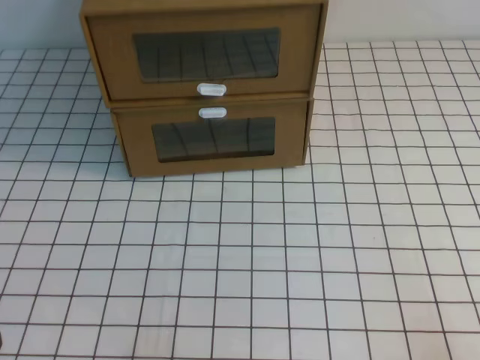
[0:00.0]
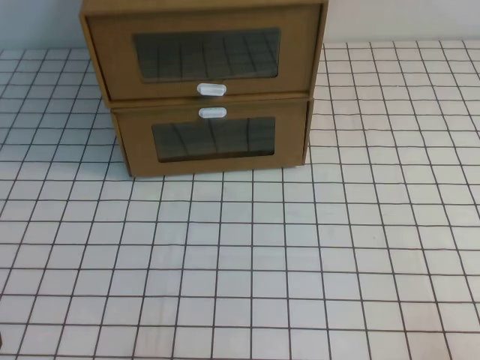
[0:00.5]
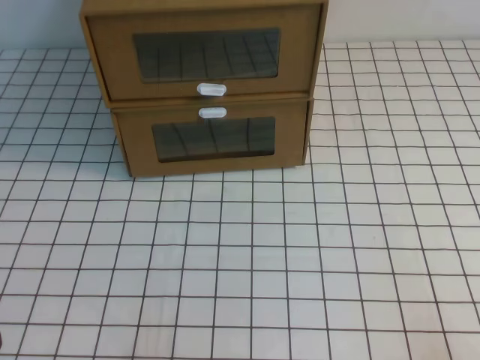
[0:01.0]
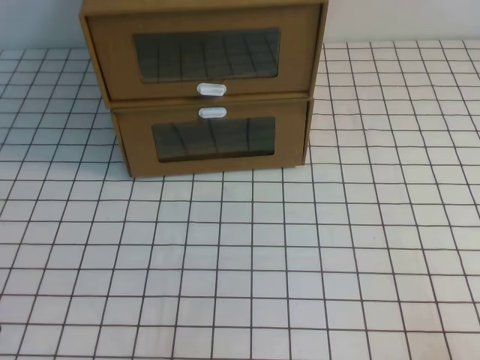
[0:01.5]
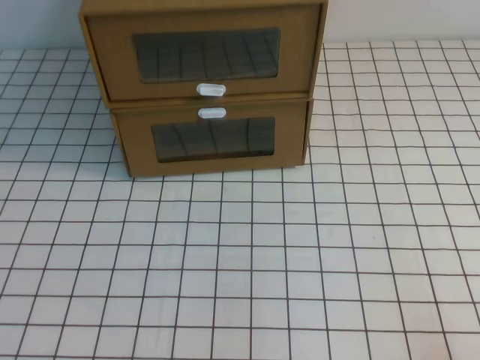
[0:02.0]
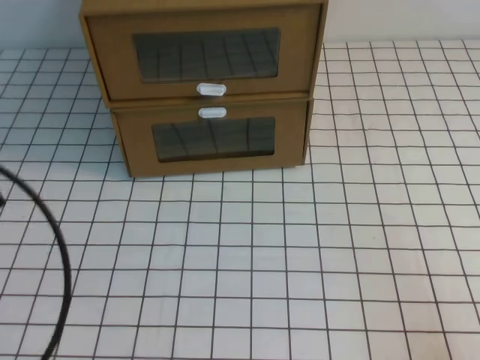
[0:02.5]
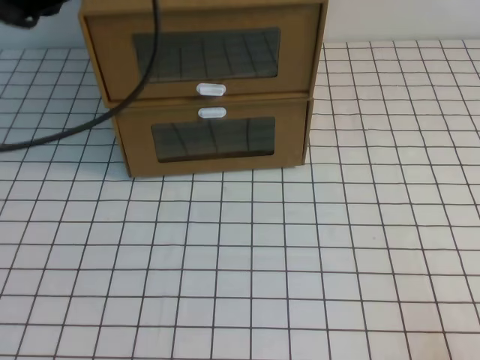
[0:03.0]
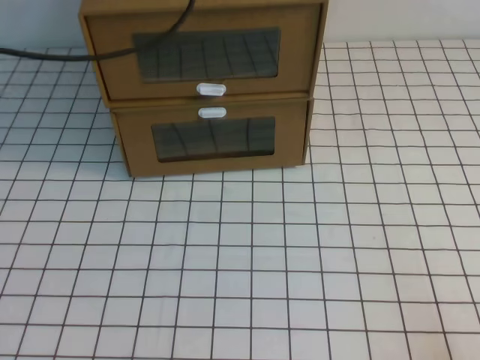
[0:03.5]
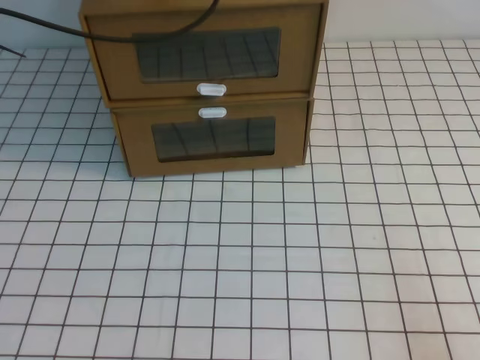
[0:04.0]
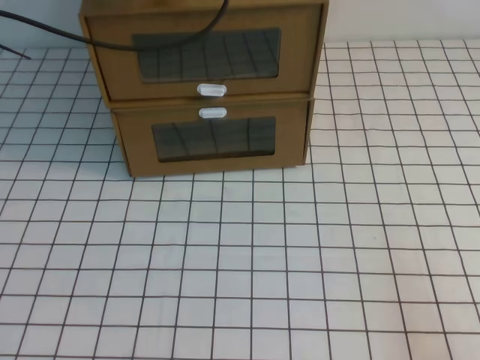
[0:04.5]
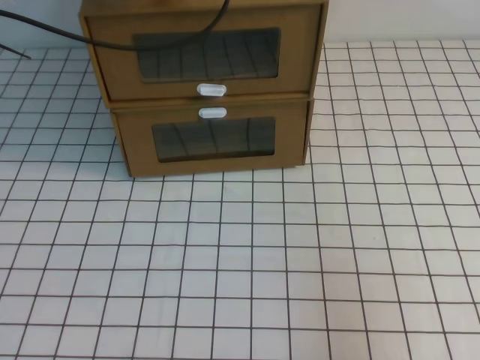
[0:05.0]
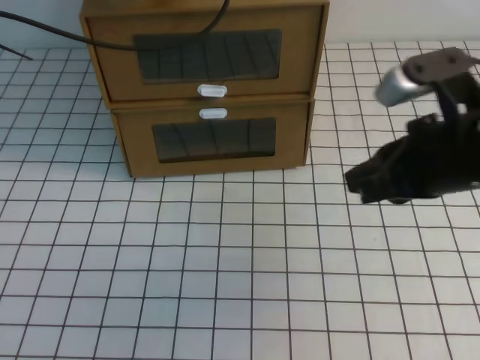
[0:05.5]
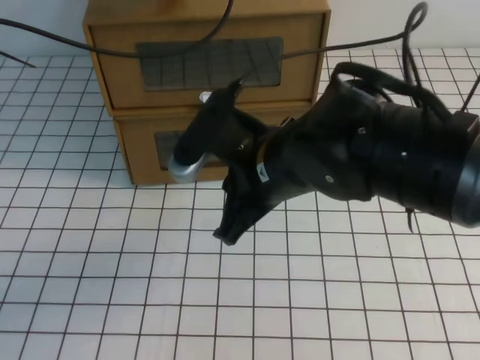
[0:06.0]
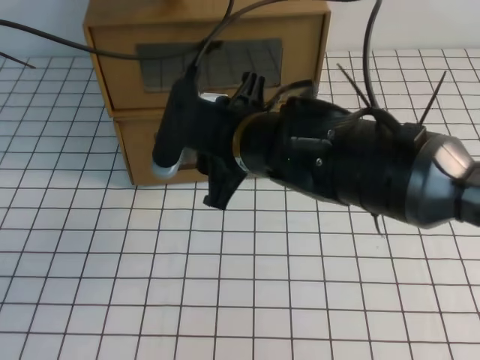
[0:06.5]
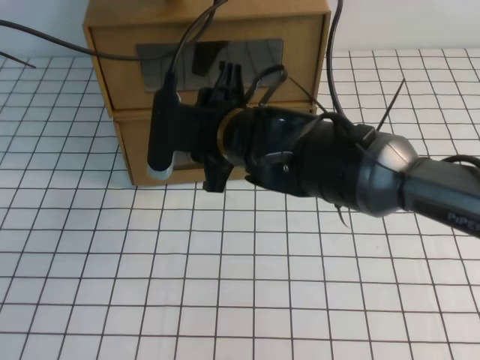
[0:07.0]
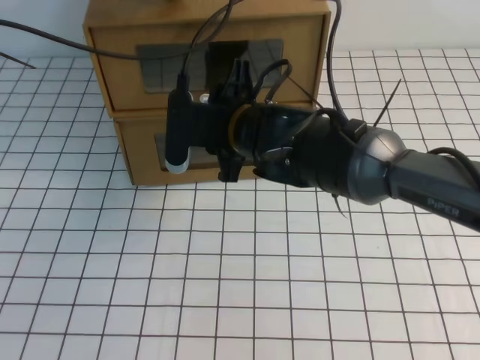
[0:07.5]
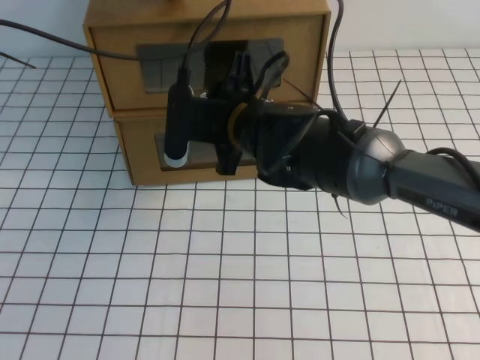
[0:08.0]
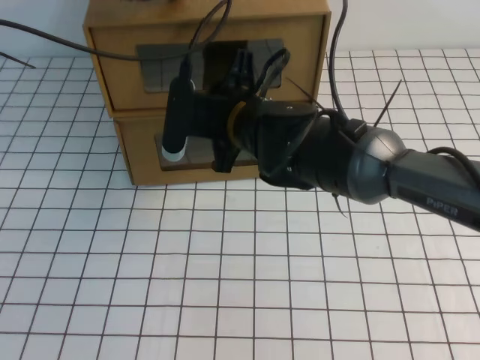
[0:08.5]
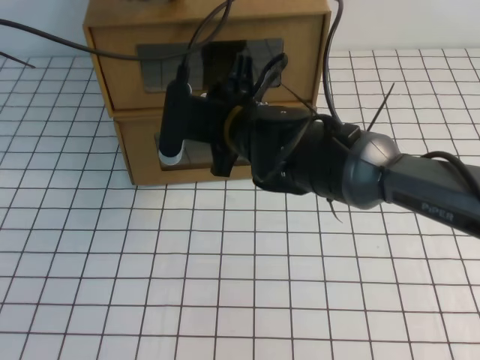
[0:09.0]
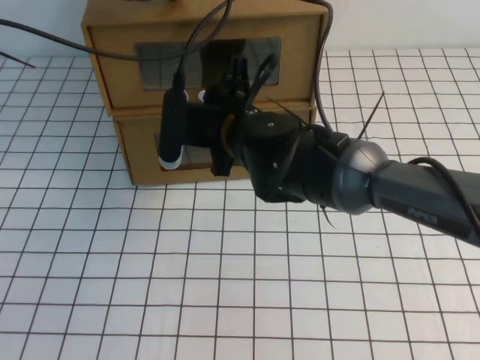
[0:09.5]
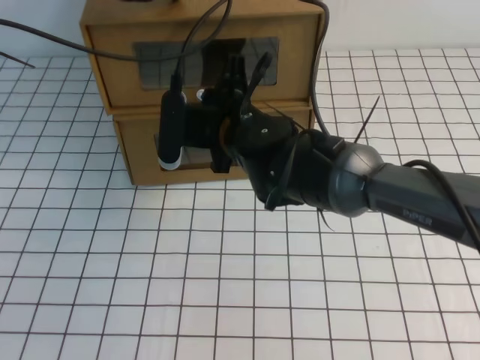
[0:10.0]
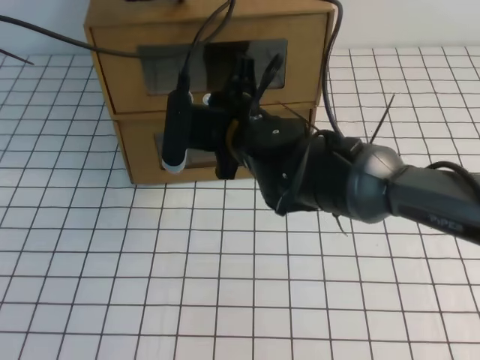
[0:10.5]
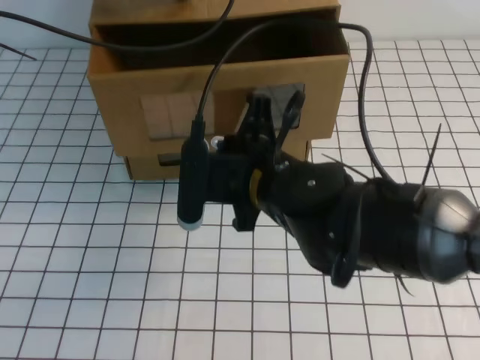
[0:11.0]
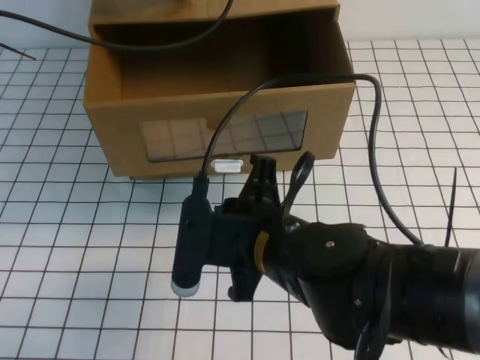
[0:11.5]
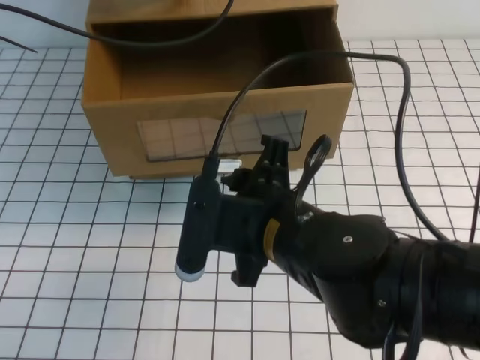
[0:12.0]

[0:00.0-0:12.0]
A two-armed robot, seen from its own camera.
Task of the whole recording: open the shoebox on the white tablecloth.
0:02.0 to 0:04.0: The left gripper goes roughly 40 cm forward and upward.
0:04.0 to 0:06.0: The right gripper shifts roughly 35 cm to the left, forward and upward.
0:06.0 to 0:08.0: The right gripper goes some 10 cm forward, and opens up.
0:08.0 to 0:10.0: The right gripper closes up.
0:10.0 to 0:12.0: The right gripper shifts approximately 15 cm backward, and opens its fingers.

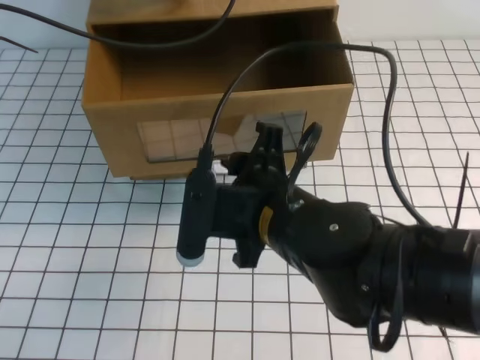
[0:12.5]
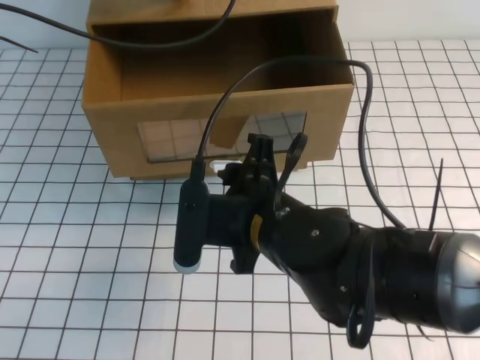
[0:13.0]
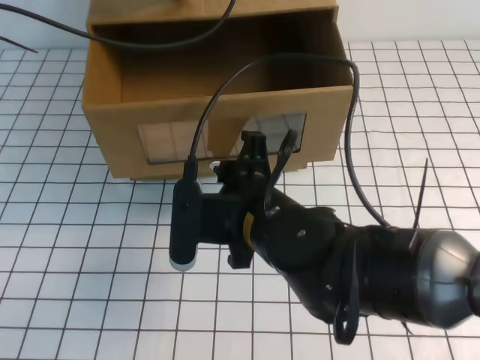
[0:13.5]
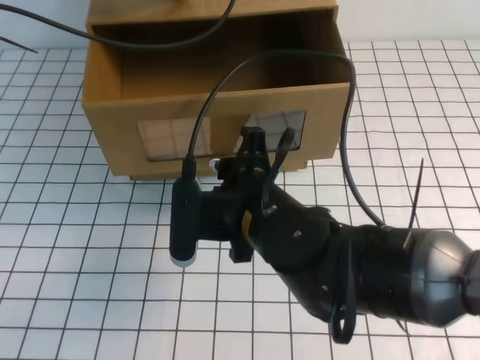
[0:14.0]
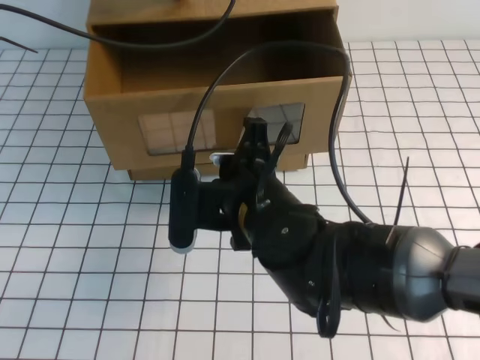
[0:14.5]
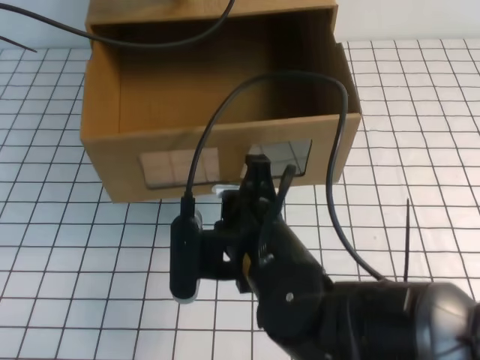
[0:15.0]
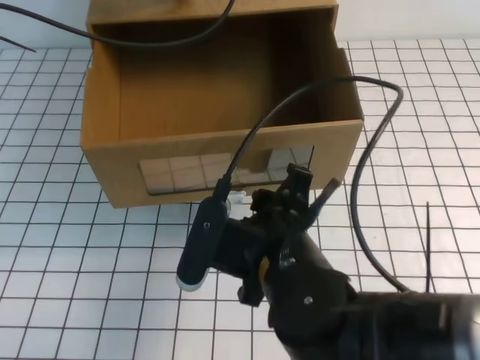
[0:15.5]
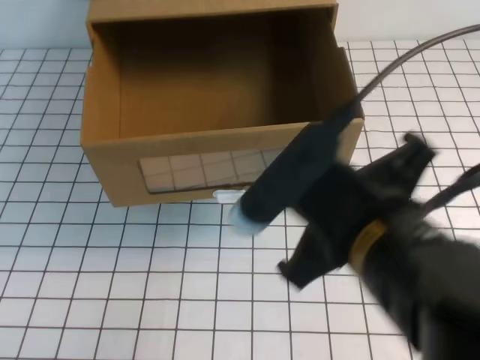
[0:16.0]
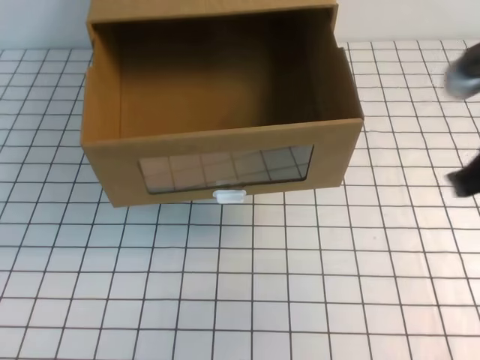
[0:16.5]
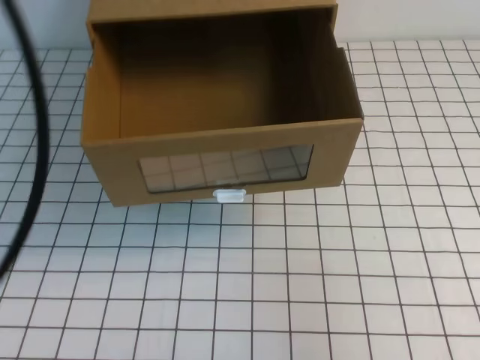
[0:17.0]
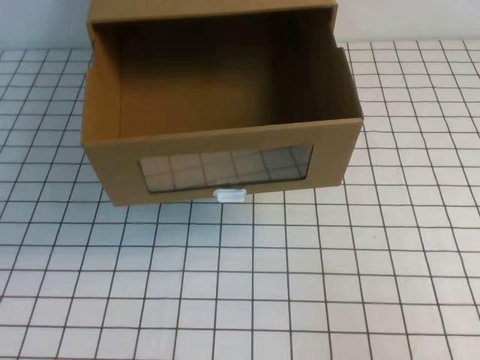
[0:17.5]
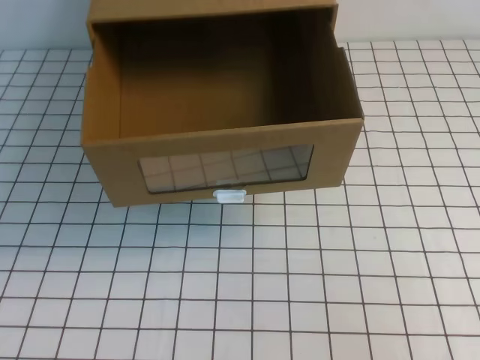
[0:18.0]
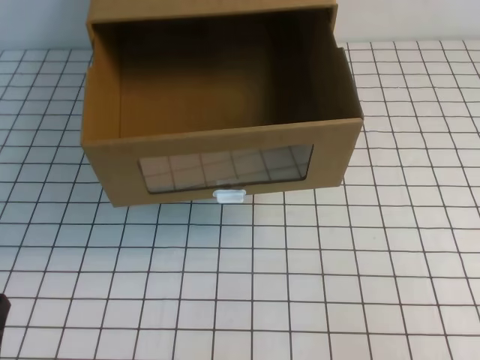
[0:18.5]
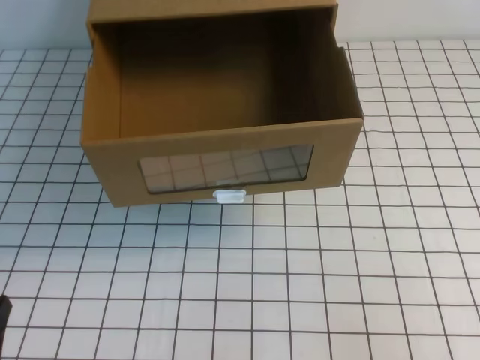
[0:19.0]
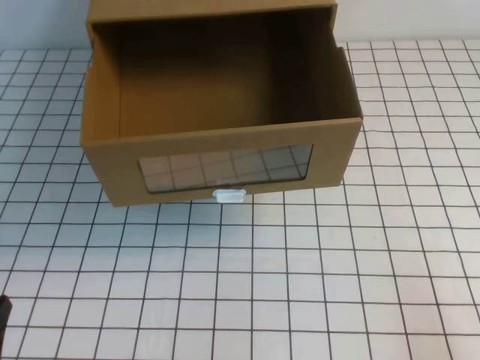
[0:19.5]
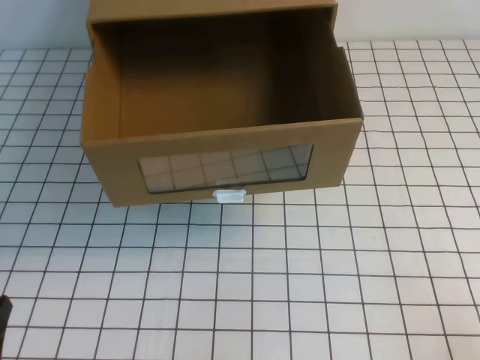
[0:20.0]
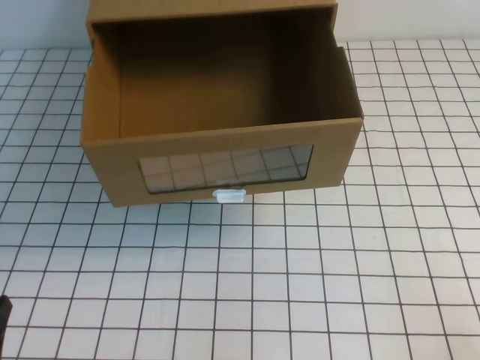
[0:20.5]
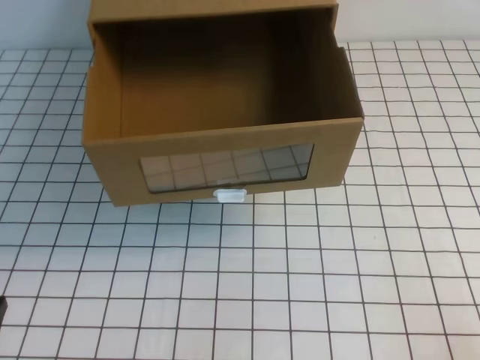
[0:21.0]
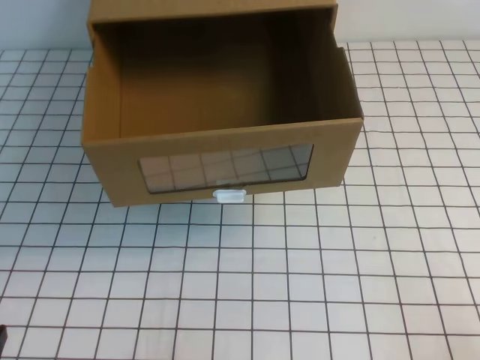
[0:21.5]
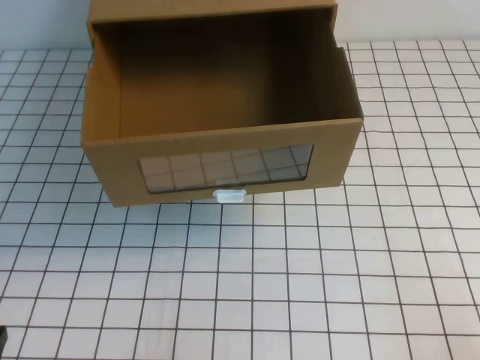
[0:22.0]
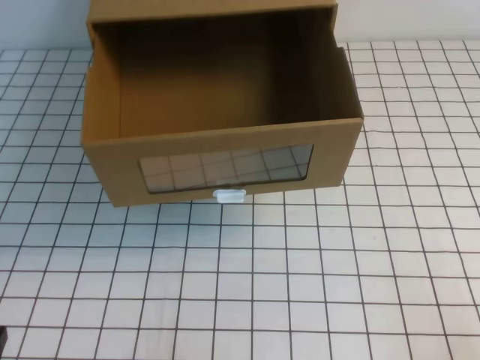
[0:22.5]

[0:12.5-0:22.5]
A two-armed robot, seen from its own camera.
Task of the whole recording: open the shoebox on the white tablecloth.
Step, 0:12.5 to 0:22.5: Open the shoe box.
0:12.5 to 0:14.5: The right gripper closes up.
0:14.5 to 0:16.5: The right gripper is displaced to the right and upward by roughly 25 cm; the left gripper travels backward and upward by roughly 25 cm.
0:16.5 to 0:18.5: The left gripper goes some 40 cm downward and backward, while the right gripper travels backward, to the right and downward by some 20 cm.

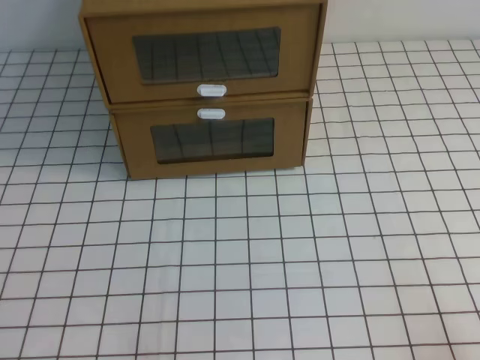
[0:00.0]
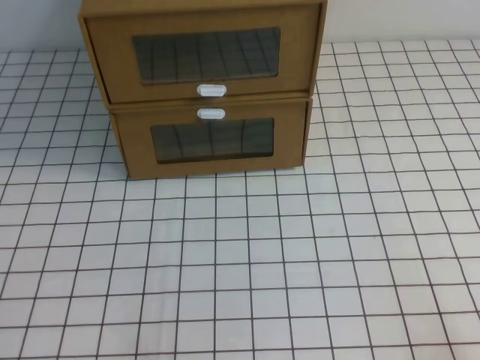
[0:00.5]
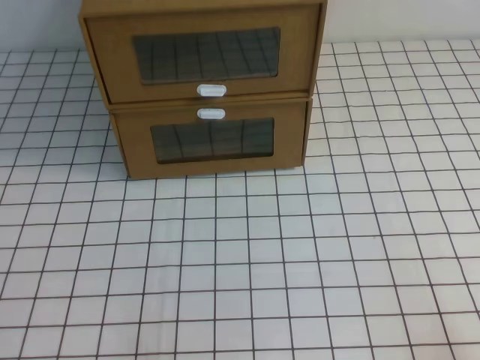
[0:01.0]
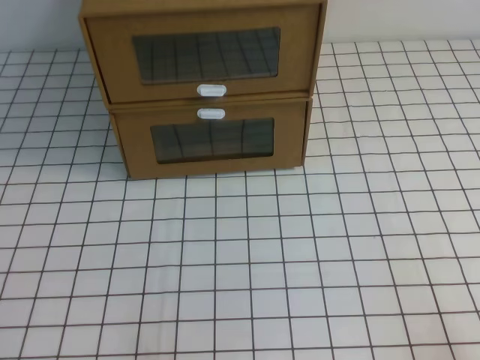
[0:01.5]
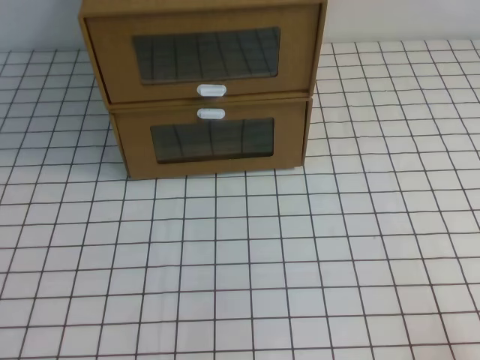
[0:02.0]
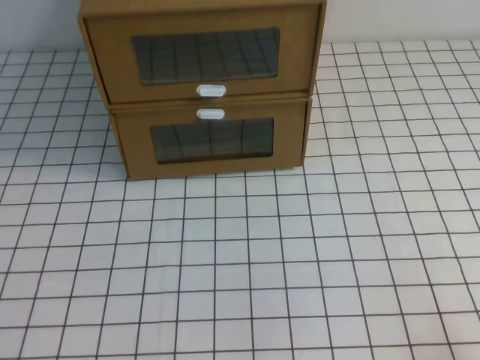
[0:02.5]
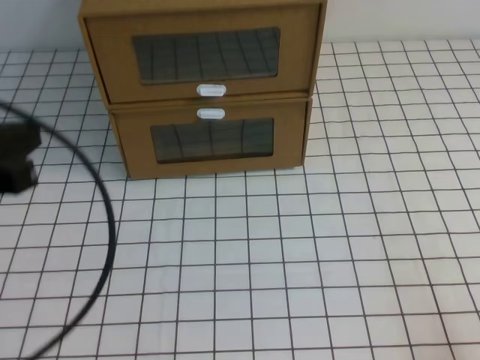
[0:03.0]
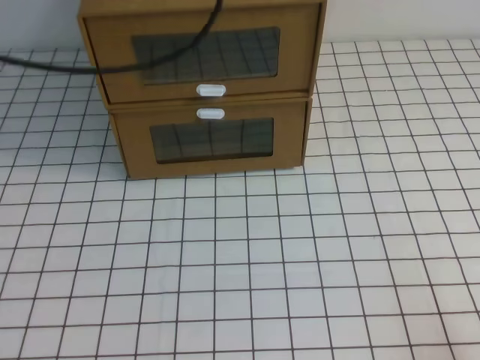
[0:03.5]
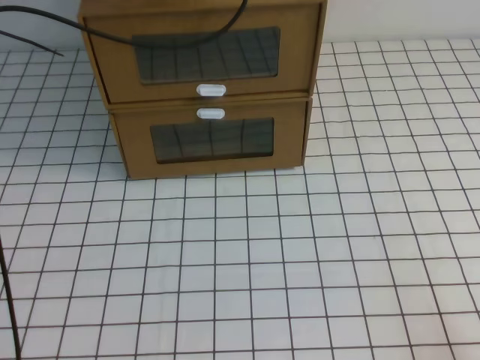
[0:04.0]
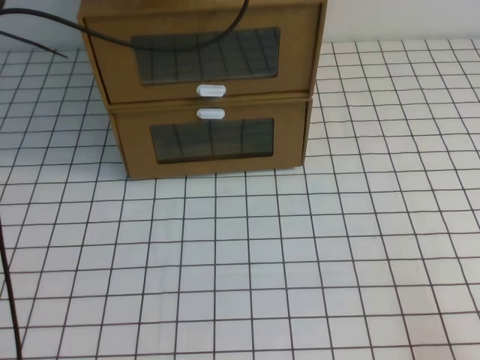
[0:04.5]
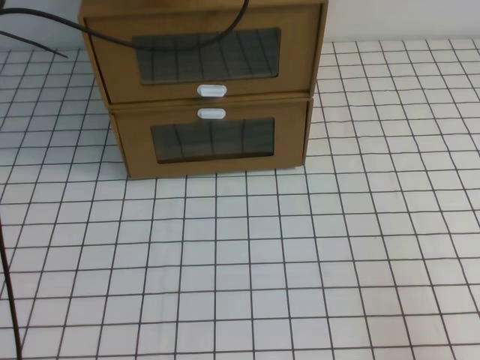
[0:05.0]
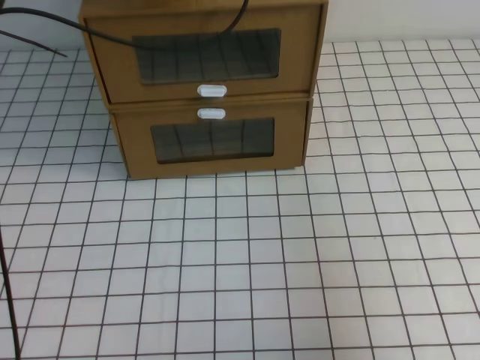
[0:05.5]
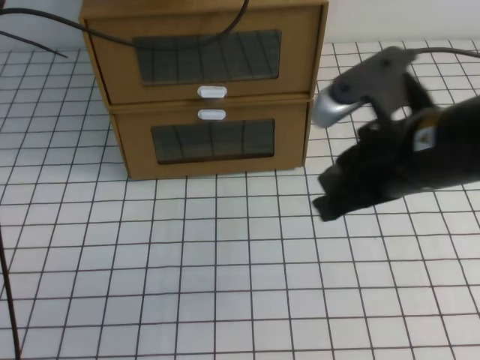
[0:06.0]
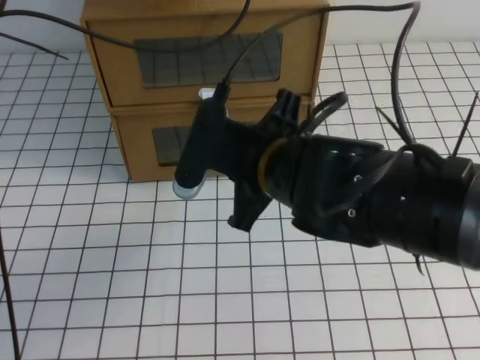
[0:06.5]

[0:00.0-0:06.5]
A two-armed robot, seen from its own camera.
Task of the whole recording: open the shoebox on the white tablecloth.
0:02.0 to 0:04.5: The left gripper travels forward and upward by approximately 50 cm.
0:04.5 to 0:06.5: The right gripper moves to the left and forward, about 35 cm.
